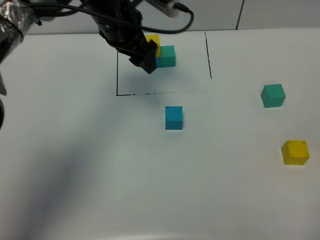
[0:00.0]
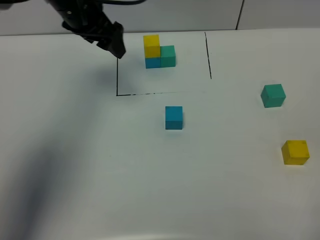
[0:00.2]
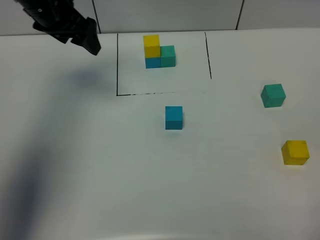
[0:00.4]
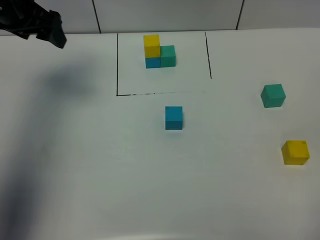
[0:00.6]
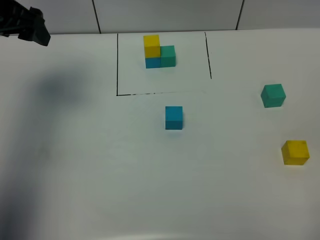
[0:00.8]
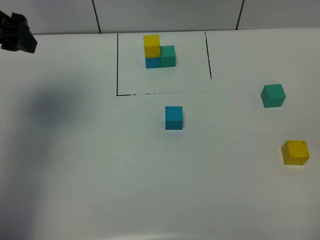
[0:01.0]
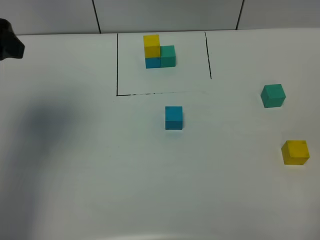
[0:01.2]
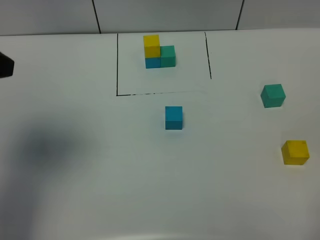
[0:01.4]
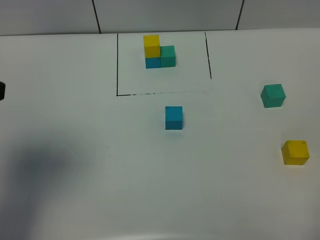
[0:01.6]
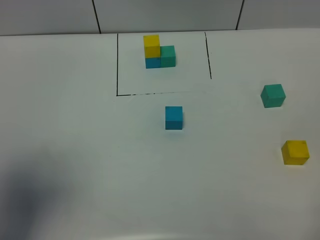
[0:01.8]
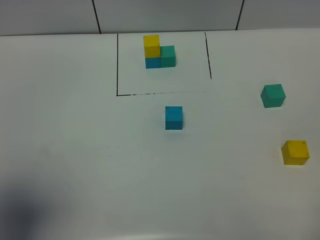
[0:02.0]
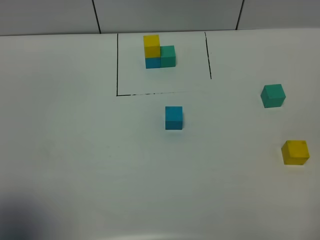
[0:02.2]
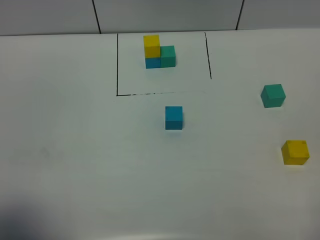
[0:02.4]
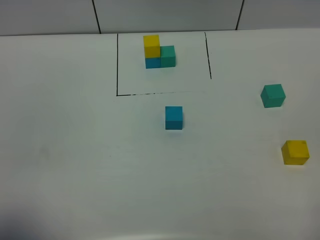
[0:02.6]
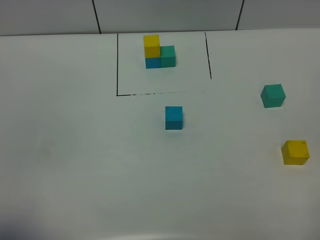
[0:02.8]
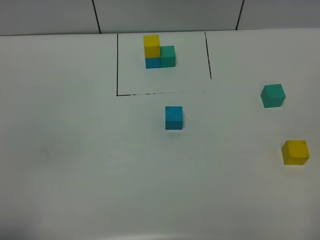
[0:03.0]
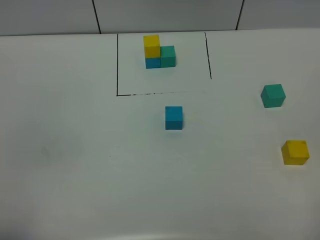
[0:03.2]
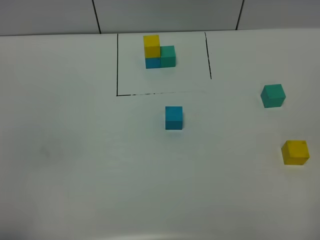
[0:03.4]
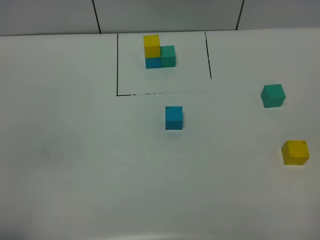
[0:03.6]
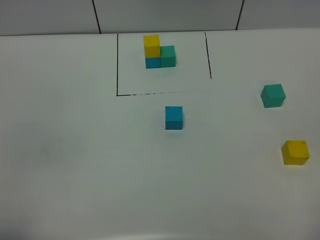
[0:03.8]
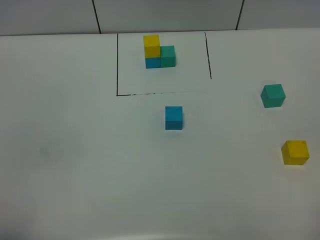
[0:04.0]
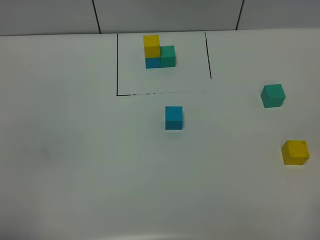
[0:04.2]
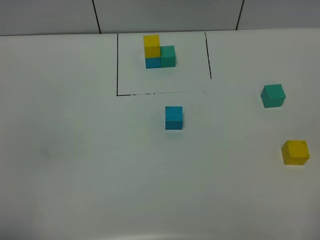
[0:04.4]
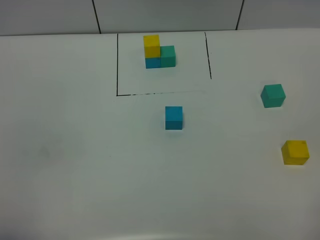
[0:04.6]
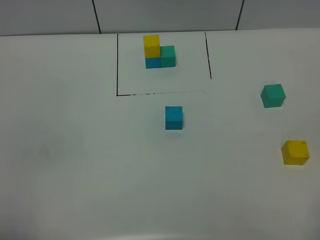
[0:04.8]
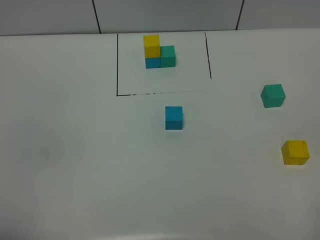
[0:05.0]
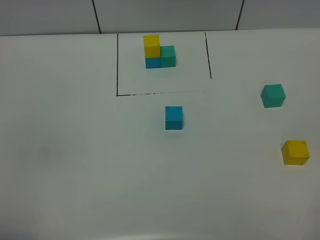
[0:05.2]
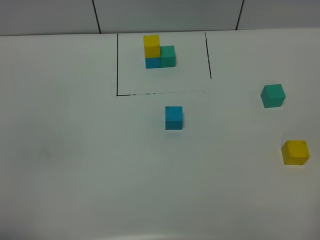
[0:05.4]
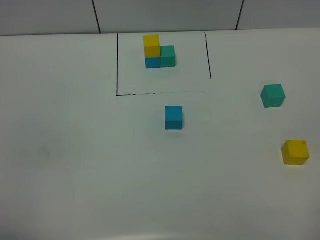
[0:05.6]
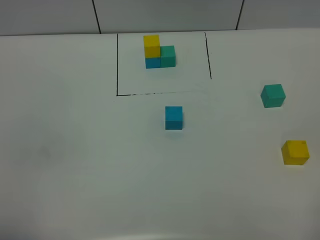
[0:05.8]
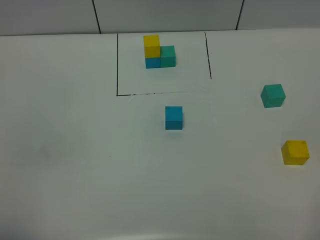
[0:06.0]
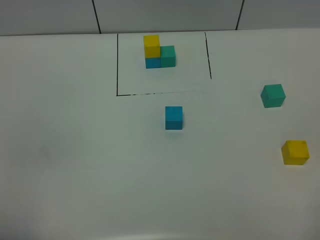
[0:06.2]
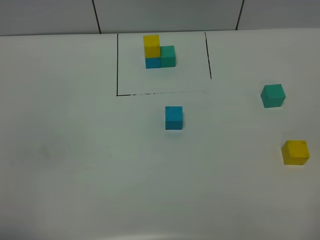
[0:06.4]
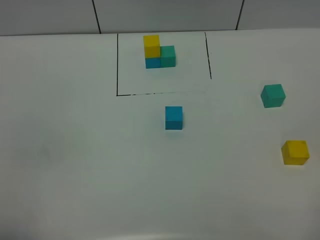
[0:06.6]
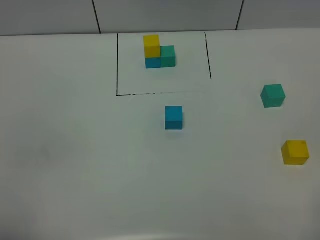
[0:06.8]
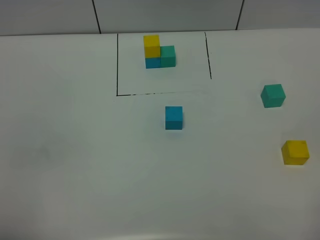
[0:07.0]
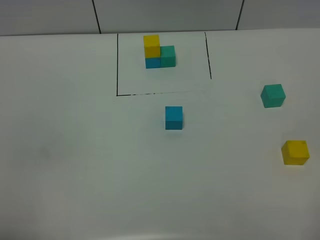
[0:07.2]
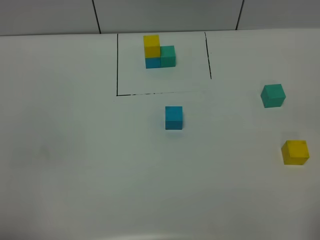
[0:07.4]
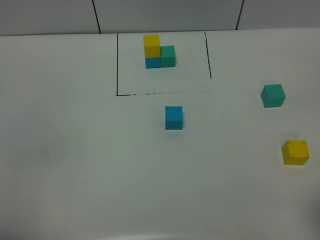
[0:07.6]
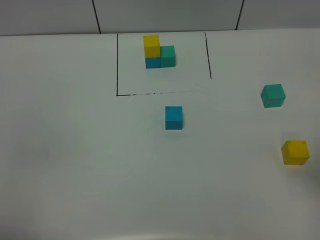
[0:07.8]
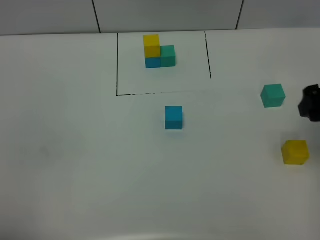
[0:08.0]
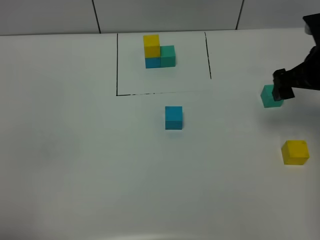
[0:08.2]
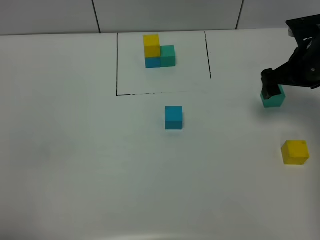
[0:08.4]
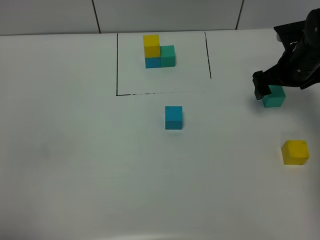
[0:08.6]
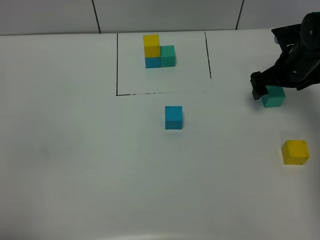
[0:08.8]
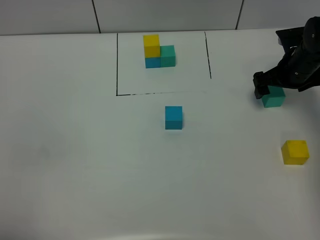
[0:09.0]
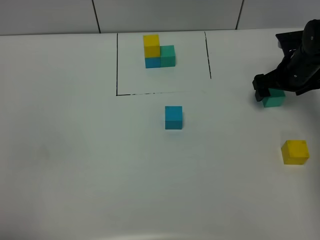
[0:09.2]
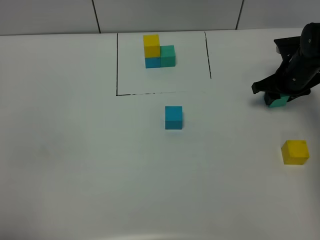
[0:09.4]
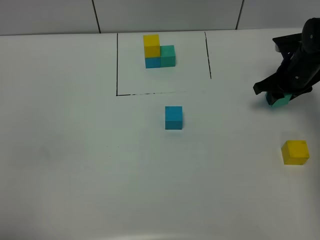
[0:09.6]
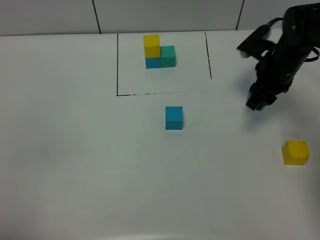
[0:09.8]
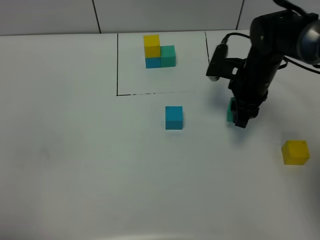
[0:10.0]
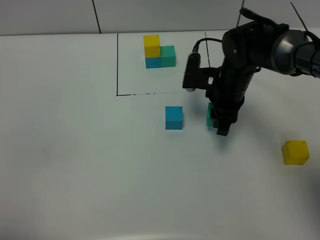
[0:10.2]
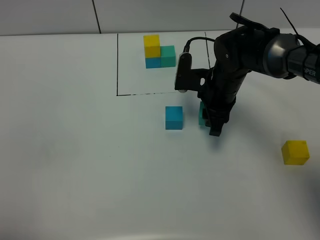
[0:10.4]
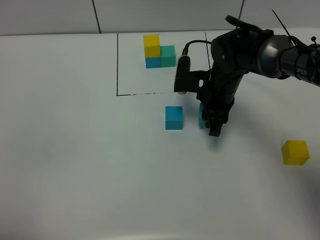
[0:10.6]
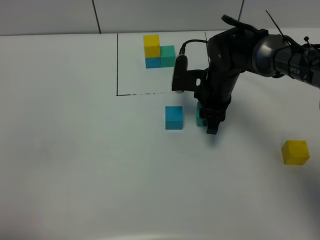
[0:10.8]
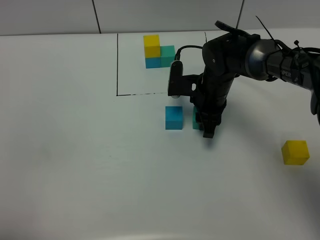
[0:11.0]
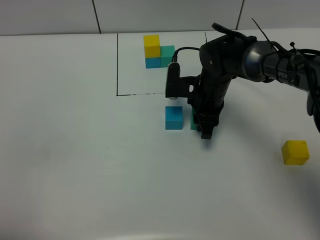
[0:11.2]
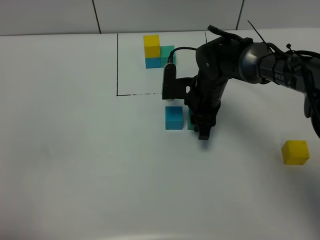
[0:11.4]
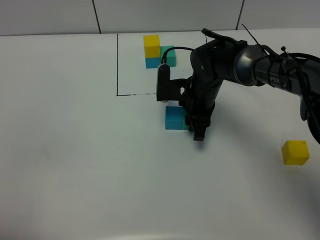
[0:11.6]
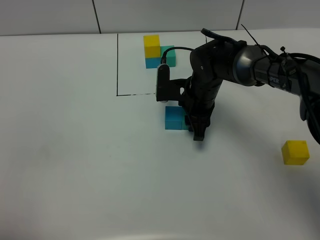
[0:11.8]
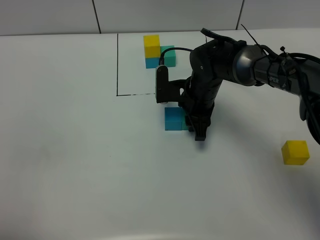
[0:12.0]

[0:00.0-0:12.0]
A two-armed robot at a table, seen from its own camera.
Task of the whole recording: According to the building block template in front, assemble the scattered blocks together.
0:00.0 to 0:01.6: The left gripper goes some 35 cm backward, to the left and upward.
0:01.6 to 0:03.0: The left gripper moves backward and downward, approximately 20 cm.
0:04.4 to 0:06.0: Both grippers stay about where they are.
0:07.6 to 0:09.0: The right gripper goes approximately 40 cm forward and downward.
0:09.0 to 0:10.4: The right gripper shifts about 15 cm to the left, and closes.
0:10.4 to 0:12.0: The right gripper ends up roughly 5 cm from where it was.

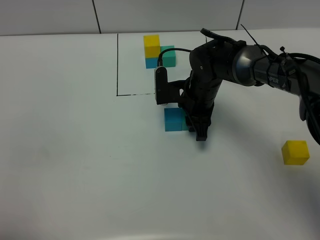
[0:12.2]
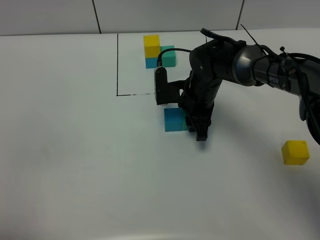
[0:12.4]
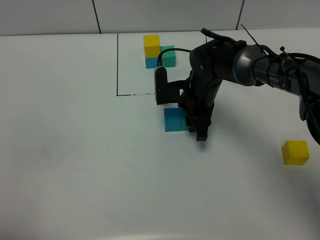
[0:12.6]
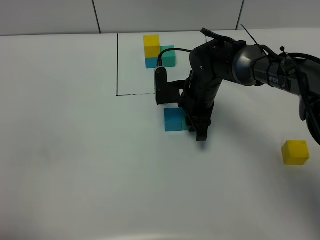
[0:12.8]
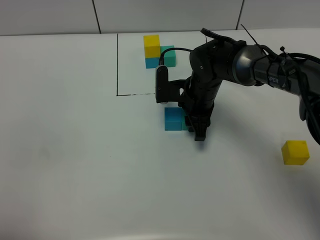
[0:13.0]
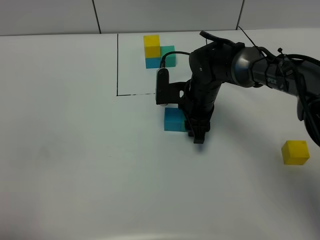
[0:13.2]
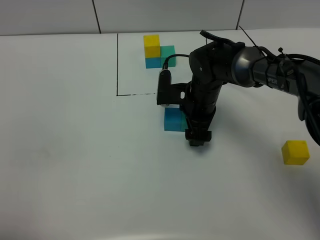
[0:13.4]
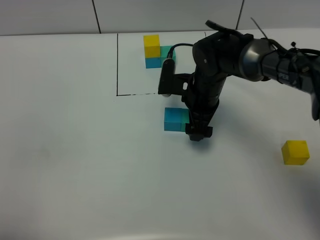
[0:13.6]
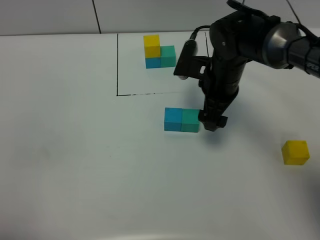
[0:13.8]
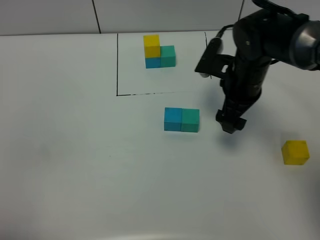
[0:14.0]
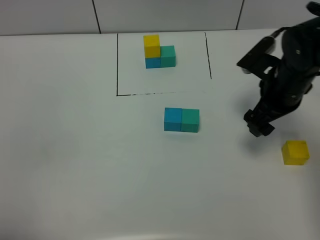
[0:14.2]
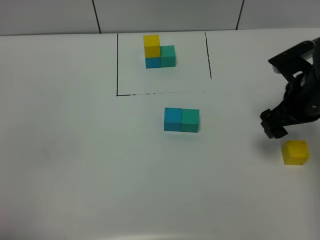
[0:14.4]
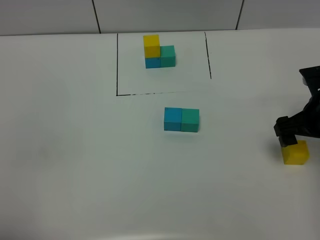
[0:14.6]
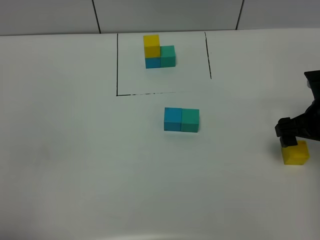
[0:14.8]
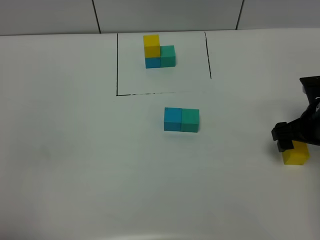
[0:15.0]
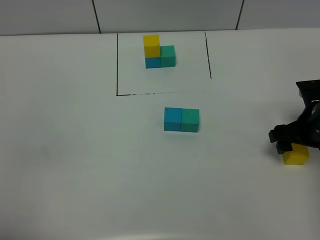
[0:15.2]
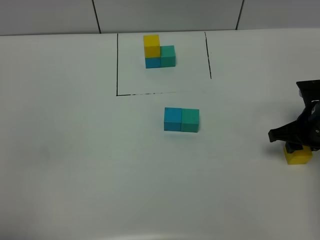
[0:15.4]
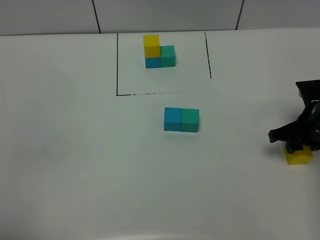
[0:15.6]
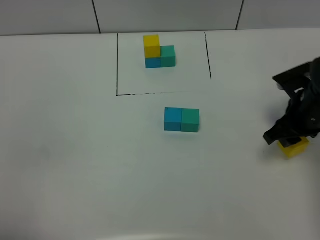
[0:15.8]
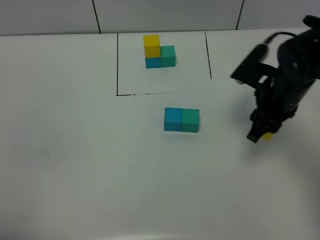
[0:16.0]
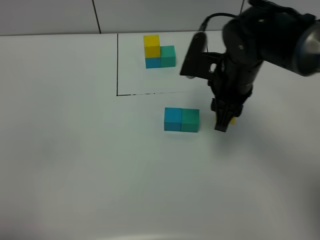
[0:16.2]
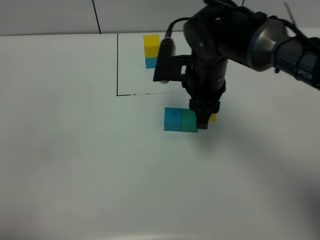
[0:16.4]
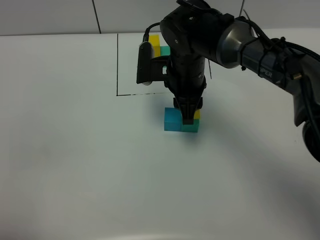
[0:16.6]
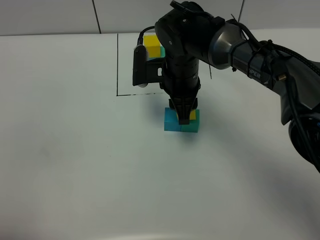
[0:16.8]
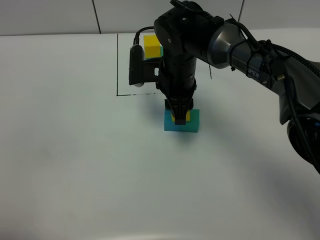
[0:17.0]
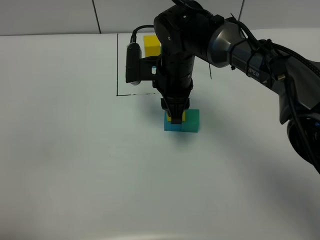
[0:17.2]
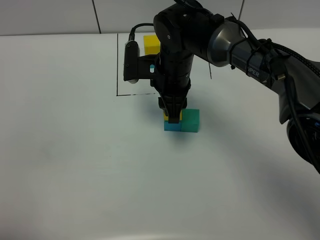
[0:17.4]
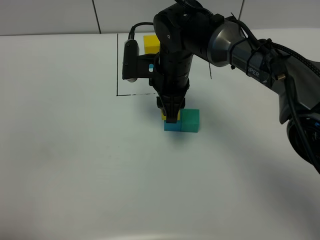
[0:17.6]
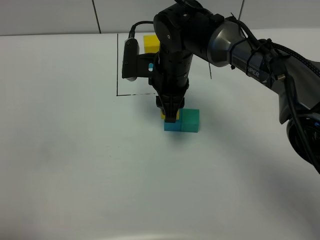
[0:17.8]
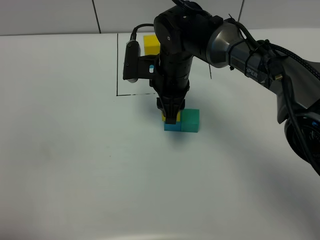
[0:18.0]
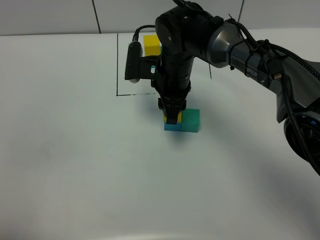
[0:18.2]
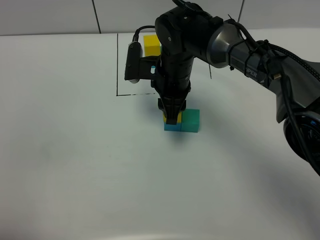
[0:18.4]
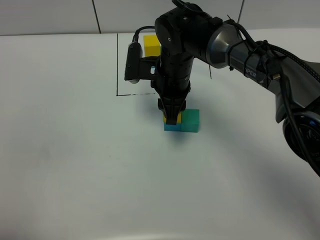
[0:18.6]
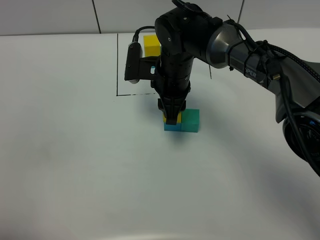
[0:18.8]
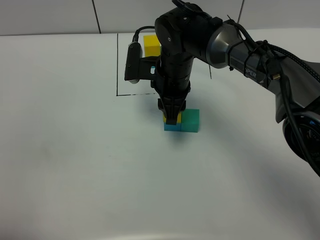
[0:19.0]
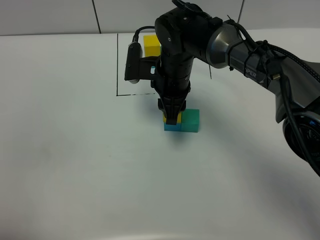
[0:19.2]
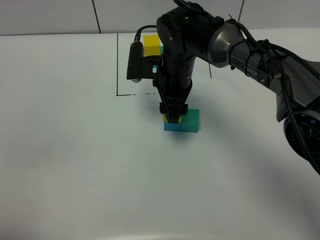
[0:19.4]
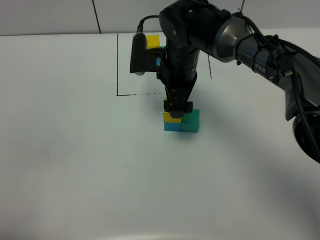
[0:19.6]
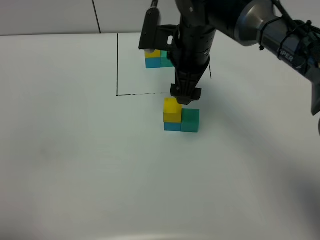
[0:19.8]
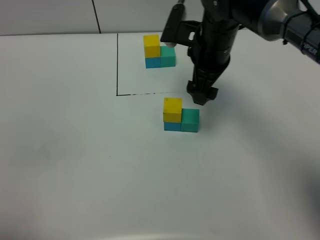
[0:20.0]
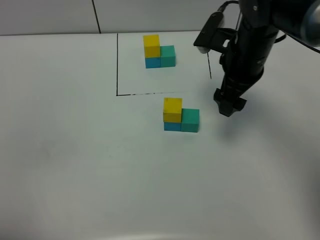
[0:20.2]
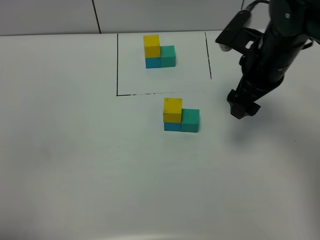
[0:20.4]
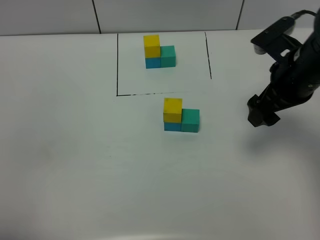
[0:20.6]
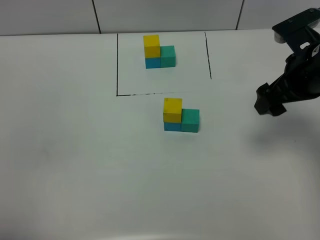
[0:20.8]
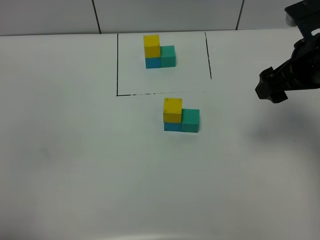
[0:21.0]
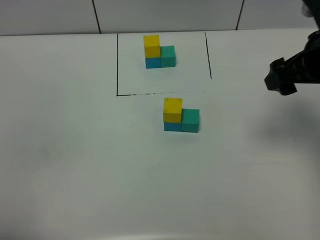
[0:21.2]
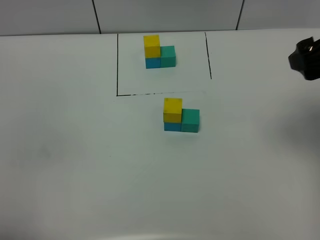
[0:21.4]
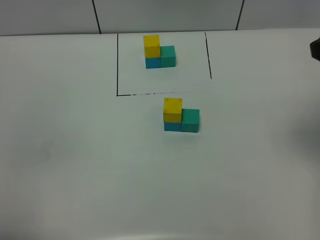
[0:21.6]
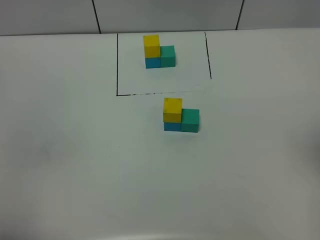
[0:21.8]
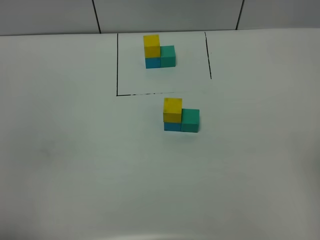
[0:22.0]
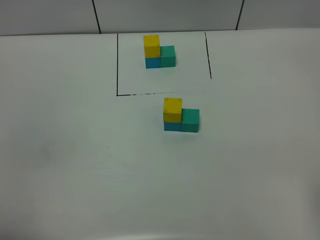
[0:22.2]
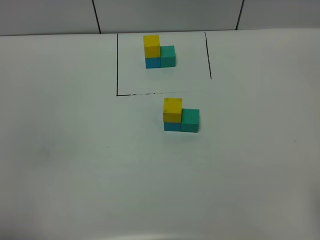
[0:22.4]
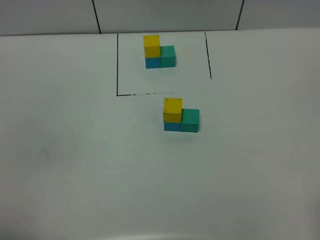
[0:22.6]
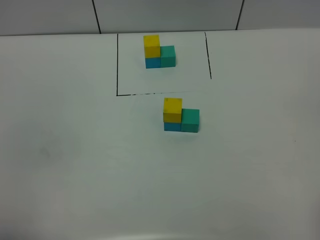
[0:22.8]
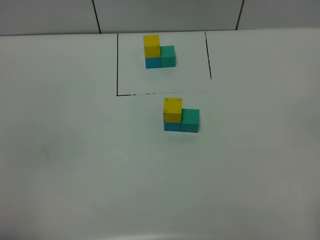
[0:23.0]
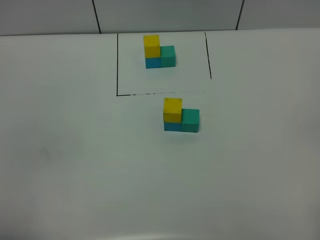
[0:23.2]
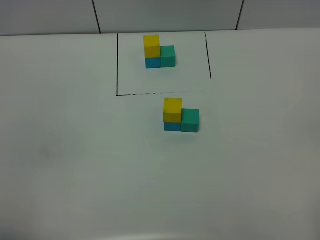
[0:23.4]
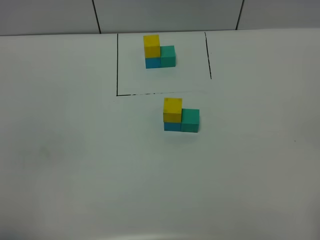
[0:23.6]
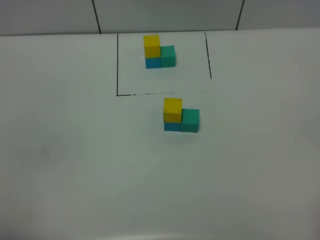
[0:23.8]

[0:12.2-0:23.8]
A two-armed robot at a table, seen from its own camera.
Task of the whole recording: According to the building block template in front, assemble the scattered blocks together.
Step, 0:13.4 to 0:19.2: Put the yellow build block on the blue build block.
0:12.2 to 0:13.6: The right gripper opens up.
0:13.6 to 0:15.0: The right gripper goes approximately 20 cm to the right and backward.
0:15.0 to 0:16.6: The right gripper heads to the left, covering roughly 25 cm, and closes.
0:16.6 to 0:18.0: The grippers make only small movements.
0:18.0 to 0:19.4: The right gripper opens its fingers.
0:19.4 to 0:21.0: The right gripper moves to the right, upward and backward, roughly 25 cm.
0:21.0 to 0:22.4: The right gripper heads backward, covering some 25 cm.
